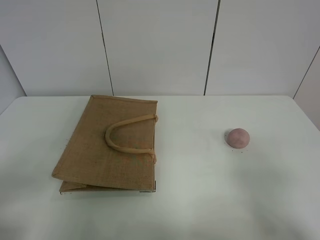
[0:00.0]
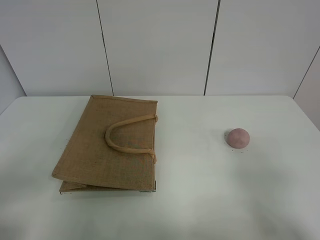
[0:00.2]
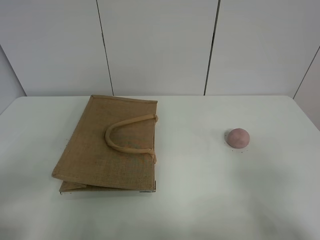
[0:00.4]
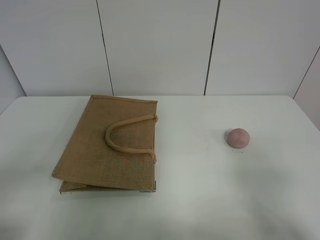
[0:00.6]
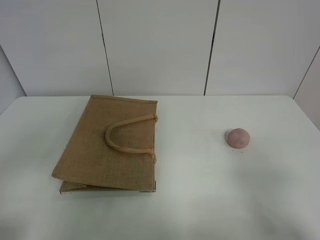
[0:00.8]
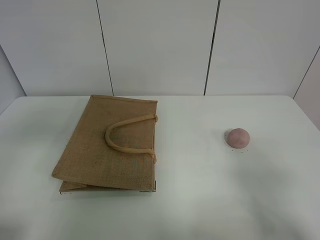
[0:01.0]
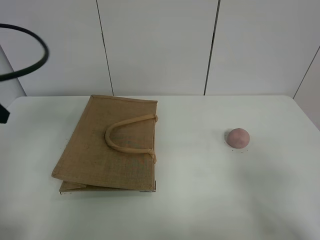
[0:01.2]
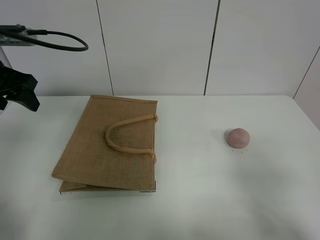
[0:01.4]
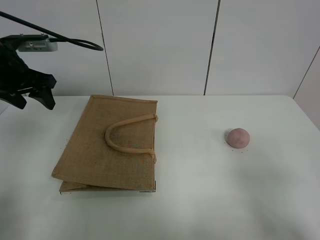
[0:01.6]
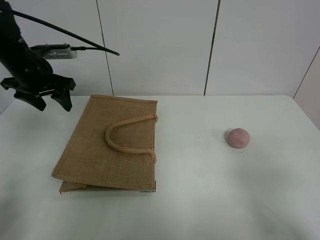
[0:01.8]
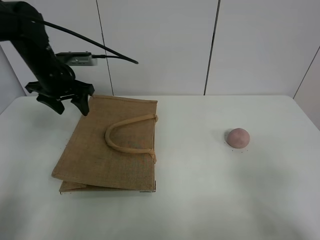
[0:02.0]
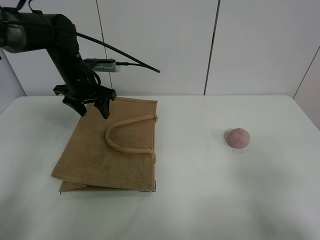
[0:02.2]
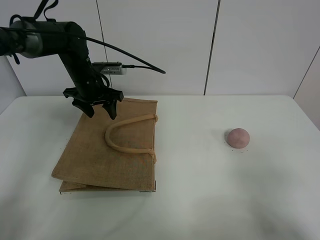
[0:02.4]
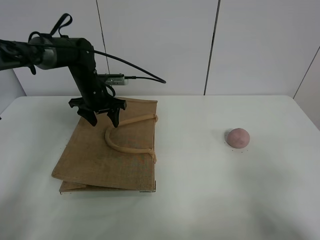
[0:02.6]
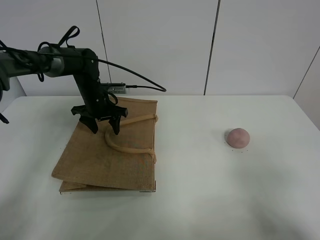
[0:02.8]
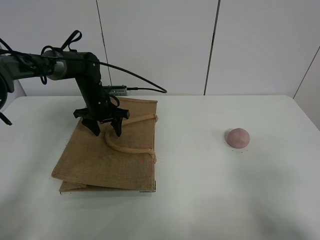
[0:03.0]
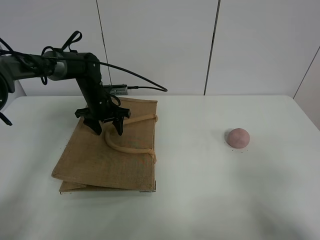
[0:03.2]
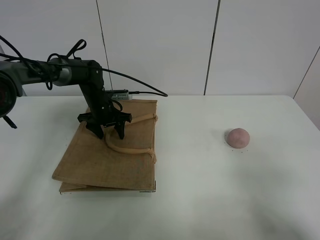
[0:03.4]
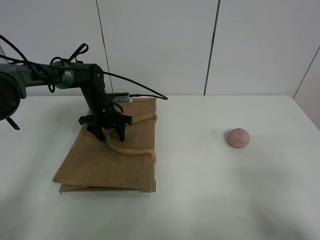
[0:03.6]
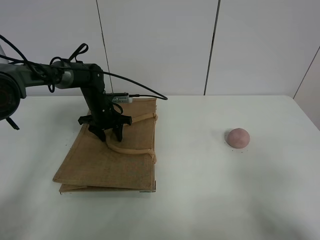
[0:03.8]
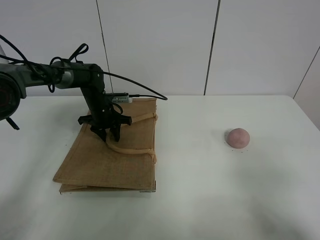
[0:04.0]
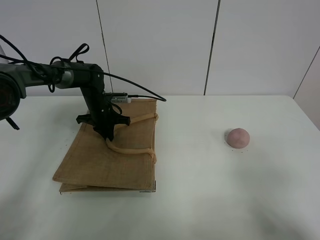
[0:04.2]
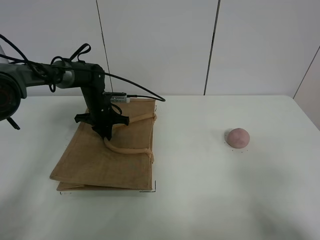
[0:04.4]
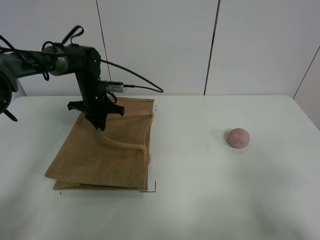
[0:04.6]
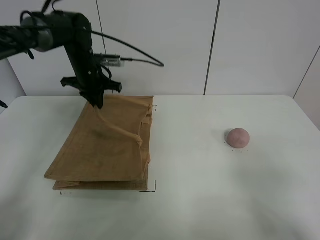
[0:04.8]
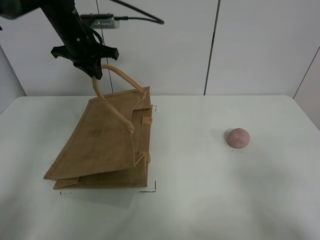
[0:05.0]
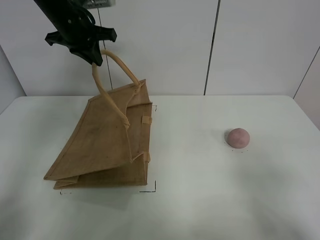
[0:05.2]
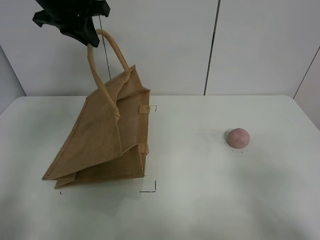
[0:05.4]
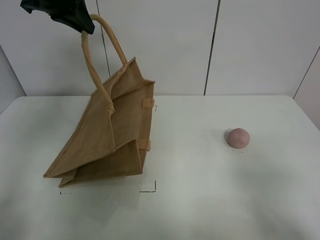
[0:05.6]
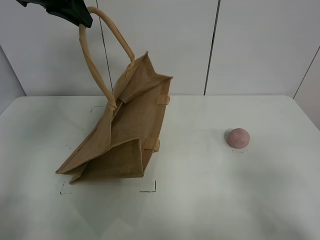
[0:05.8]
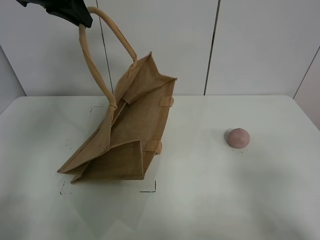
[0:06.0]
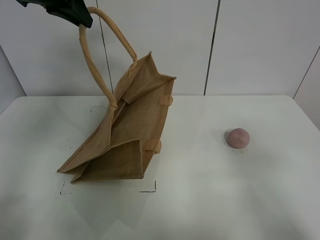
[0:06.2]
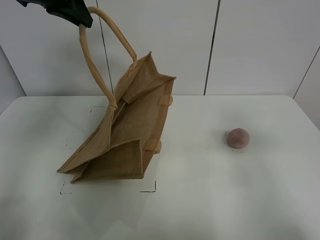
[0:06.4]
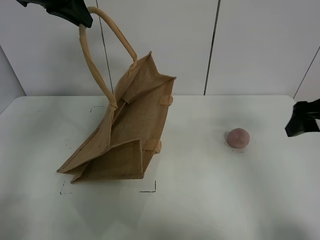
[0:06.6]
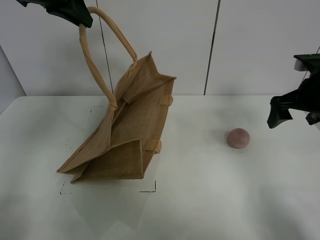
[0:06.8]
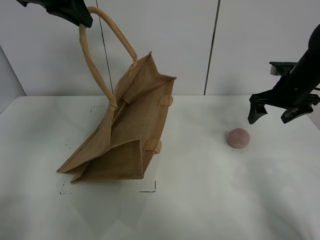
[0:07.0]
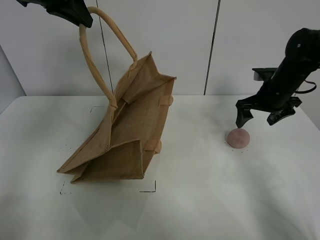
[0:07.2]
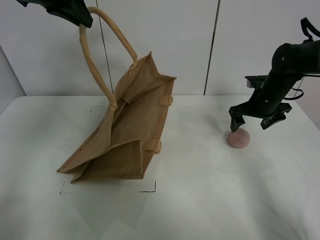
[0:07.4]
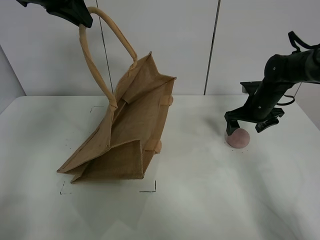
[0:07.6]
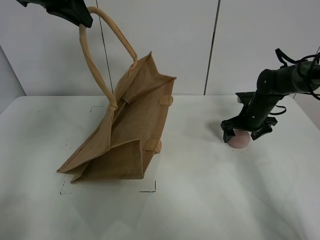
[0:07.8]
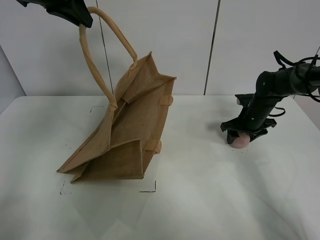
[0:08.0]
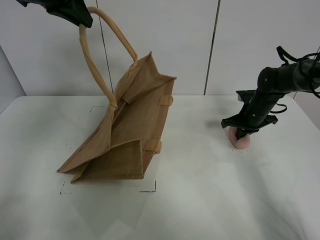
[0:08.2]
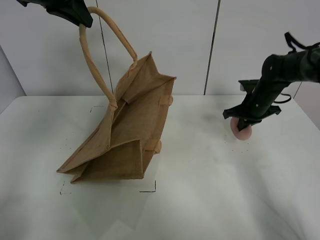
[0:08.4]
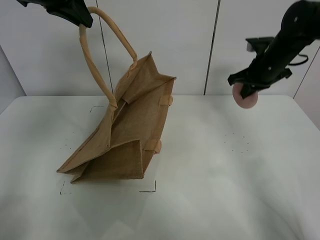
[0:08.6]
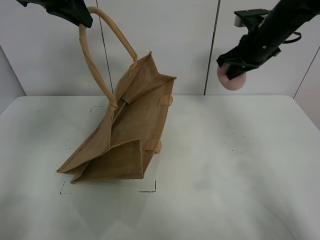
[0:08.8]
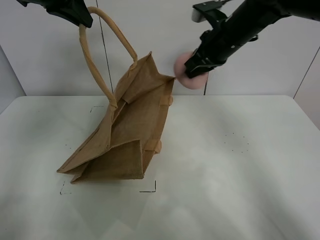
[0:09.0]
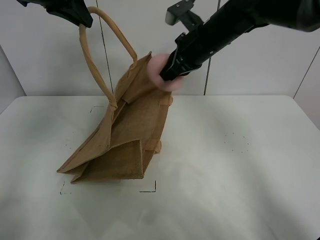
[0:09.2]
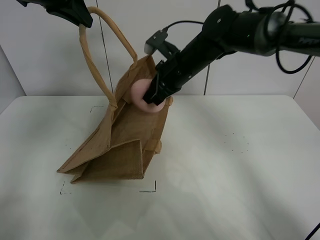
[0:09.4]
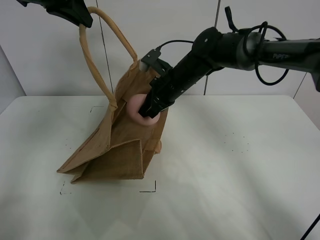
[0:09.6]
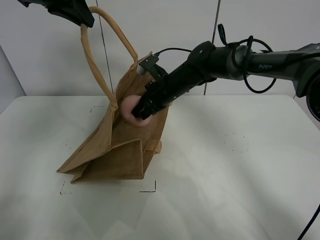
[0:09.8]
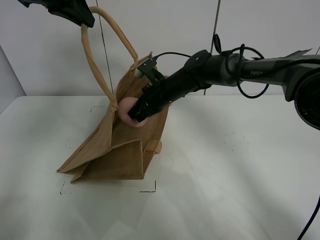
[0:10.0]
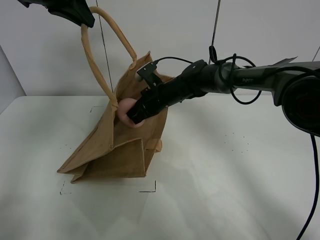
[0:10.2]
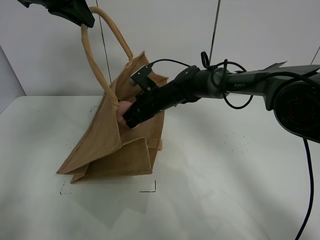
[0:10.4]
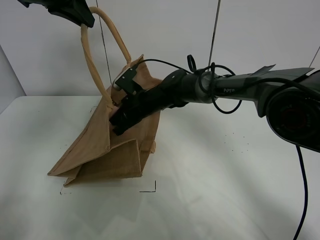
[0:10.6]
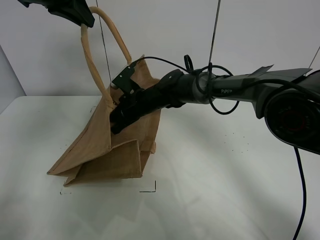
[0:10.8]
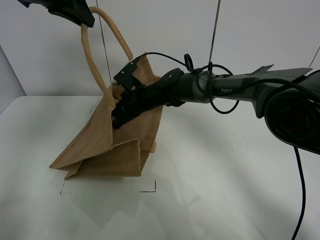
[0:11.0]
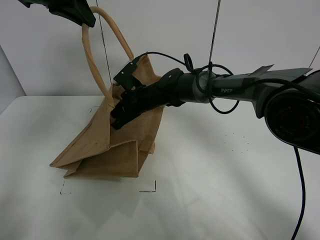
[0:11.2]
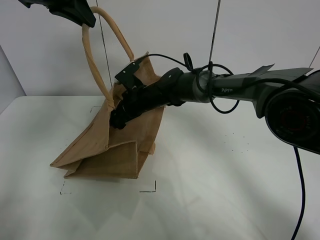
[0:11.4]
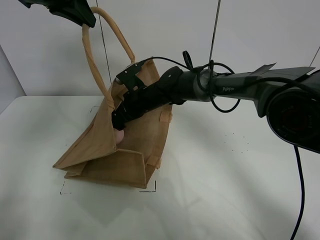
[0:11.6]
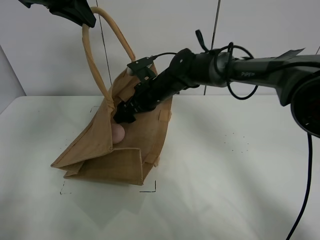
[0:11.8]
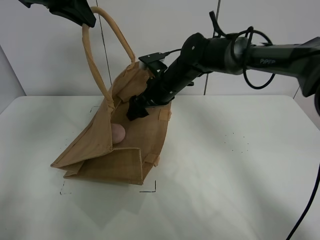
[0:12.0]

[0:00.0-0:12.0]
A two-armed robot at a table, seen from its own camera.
Task of the whole recording: open the brown linen bag and put the peach in the bag.
Step, 0:00.0 to 0:05.8: Lift the handbag with left gripper.
Step, 0:06.0 to 0:08.0: Grasp the peach with right gripper.
0:01.6 to 0:03.0: The left gripper is displaced downward, forward and to the right by roughly 25 cm.
0:03.0 to 0:04.4: The left gripper closes.
0:04.4 to 0:06.0: The left gripper shifts some 35 cm upward.
0:06.0 to 0:07.6: The right gripper goes some 40 cm forward.
0:07.6 to 0:09.0: The right gripper goes about 20 cm upward and to the left, and closes up.
0:09.0 to 0:10.4: The right gripper moves downward and to the left, roughly 20 cm.
0:10.4 to 0:12.0: The right gripper opens up.

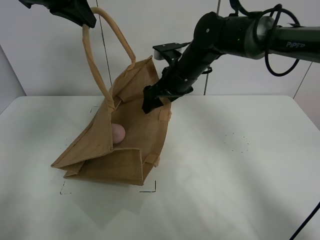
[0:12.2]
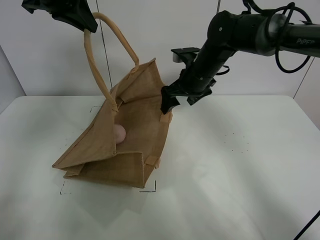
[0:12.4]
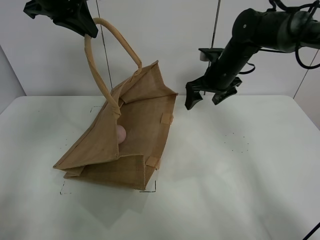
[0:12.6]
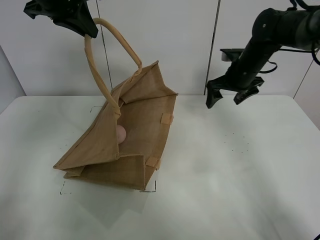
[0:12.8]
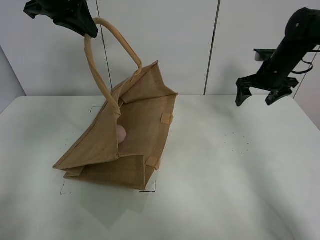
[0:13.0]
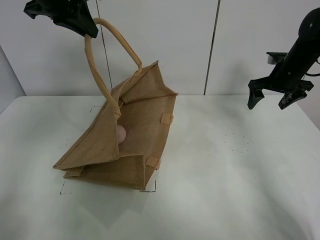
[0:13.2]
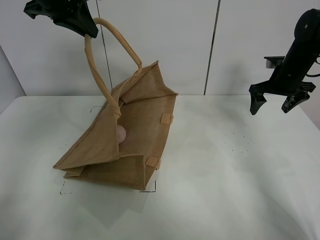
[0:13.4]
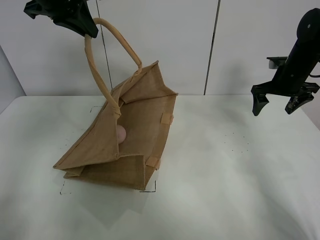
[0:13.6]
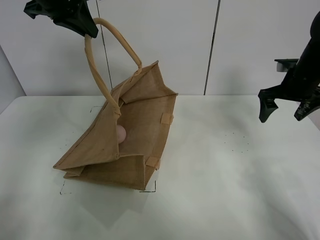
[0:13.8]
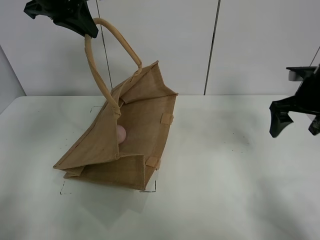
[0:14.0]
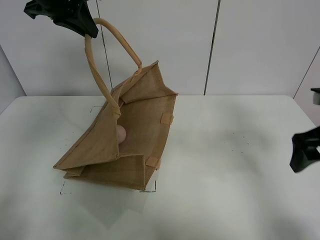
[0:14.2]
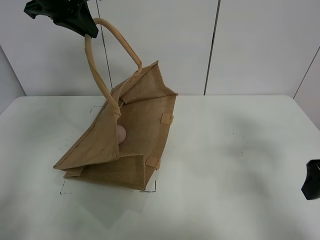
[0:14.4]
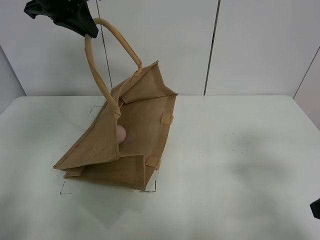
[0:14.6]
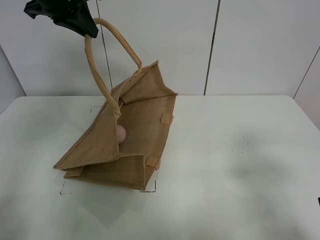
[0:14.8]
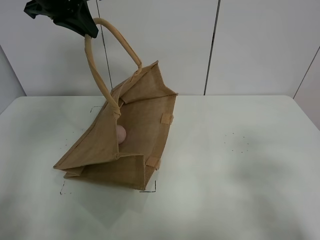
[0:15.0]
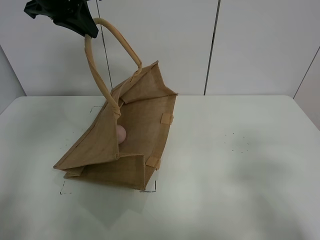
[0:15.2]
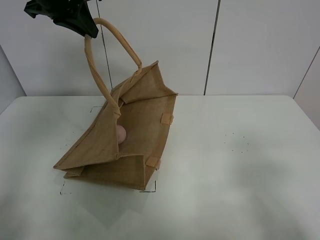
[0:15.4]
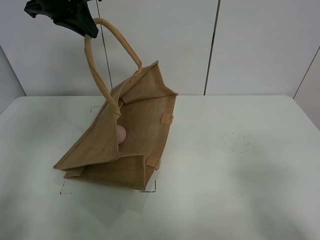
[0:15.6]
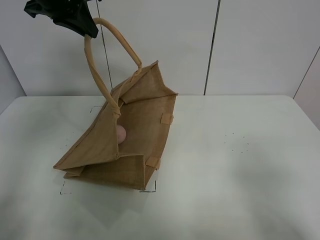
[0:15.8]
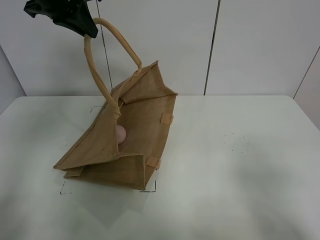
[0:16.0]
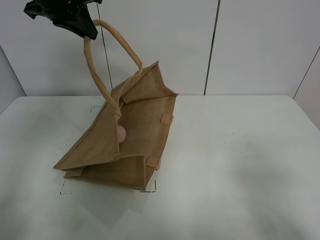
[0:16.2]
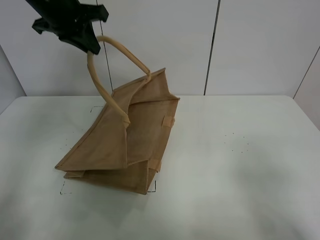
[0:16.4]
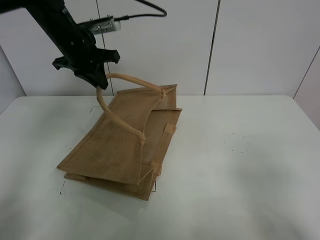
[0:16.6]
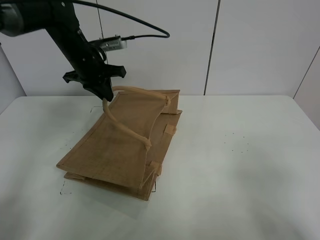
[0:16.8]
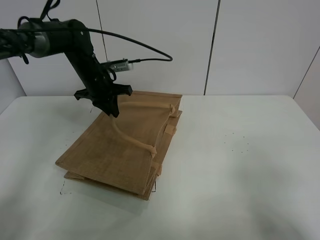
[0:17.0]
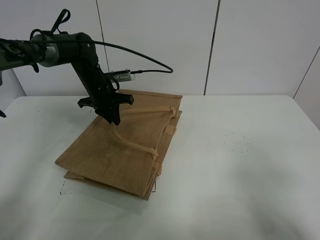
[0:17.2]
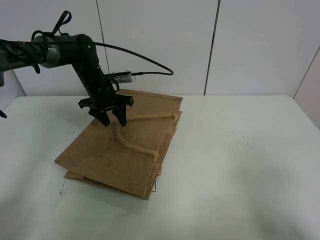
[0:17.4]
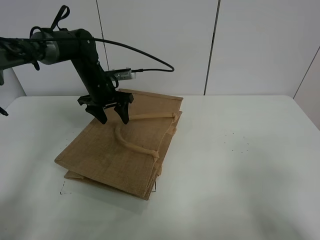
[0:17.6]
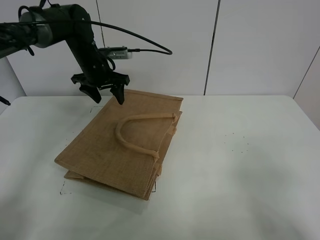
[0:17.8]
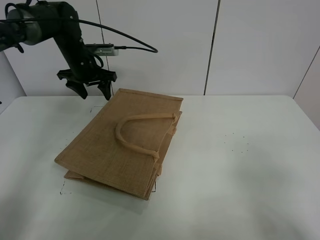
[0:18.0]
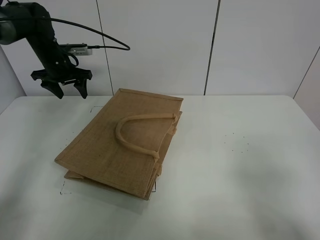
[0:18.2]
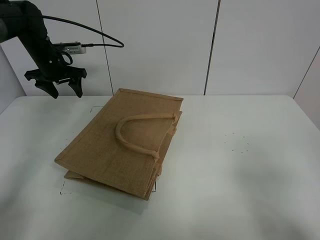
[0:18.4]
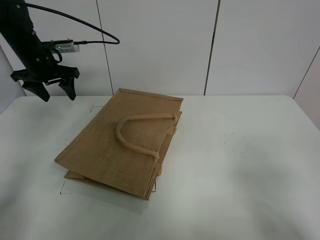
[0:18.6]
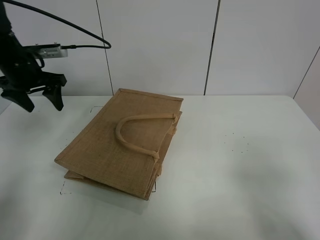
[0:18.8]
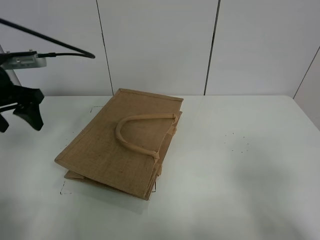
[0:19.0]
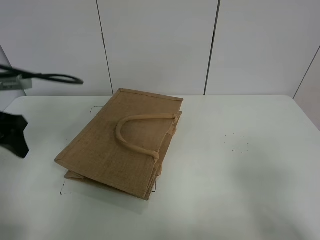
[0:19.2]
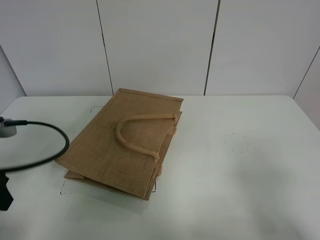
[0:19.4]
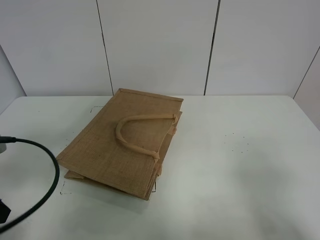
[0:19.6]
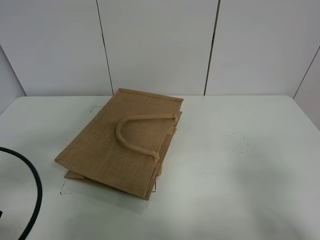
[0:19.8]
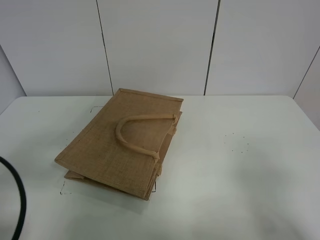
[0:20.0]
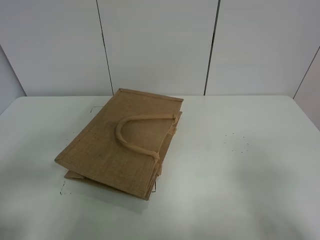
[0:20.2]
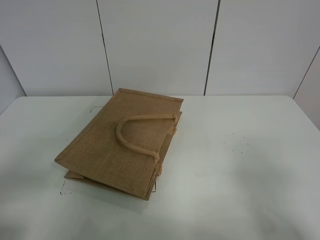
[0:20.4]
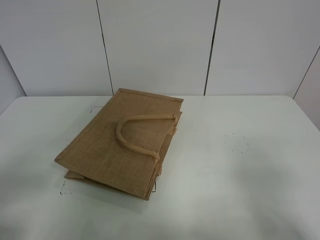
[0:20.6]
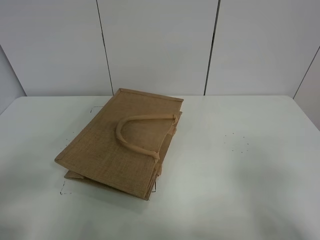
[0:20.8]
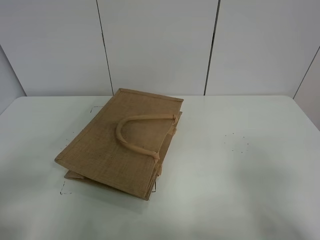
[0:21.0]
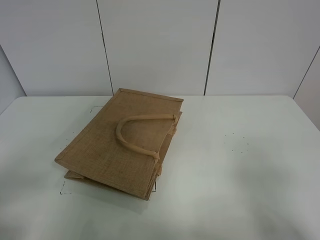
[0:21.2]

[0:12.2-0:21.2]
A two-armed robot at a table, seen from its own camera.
Task of the whole recording: open the brown linen bag and put the peach in the bag.
Step, 0:12.6 to 0:18.0: Put down the handbag with left grippe.
0:12.2 to 0:13.8: The right gripper travels to the right by about 25 cm.
0:13.8 to 0:15.2: The right gripper moves backward, some 35 cm.
0:15.2 to 0:16.6: The left gripper is displaced downward by roughly 10 cm. The right gripper travels backward by roughly 5 cm.
0:16.6 to 0:18.2: The left gripper goes roughly 15 cm downward, forward and to the left, and opens.
0:18.2 to 0:19.8: The left gripper shifts some 40 cm backward.
0:19.8 to 0:21.2: The left gripper heads backward, covering roughly 10 cm.
